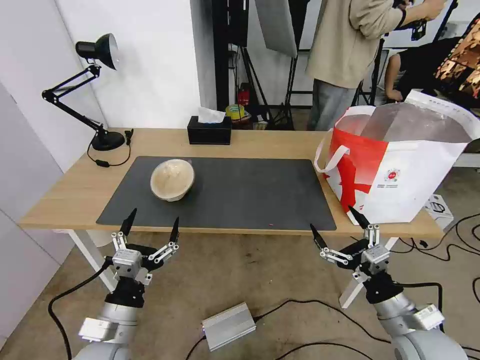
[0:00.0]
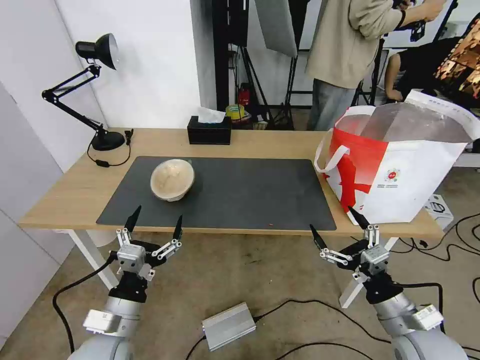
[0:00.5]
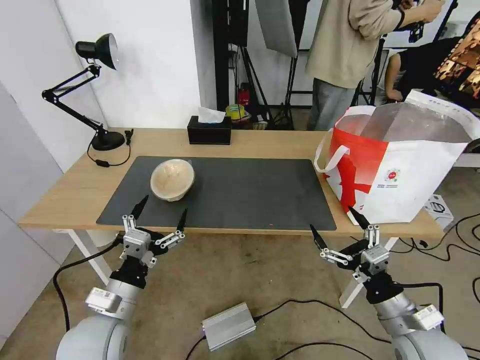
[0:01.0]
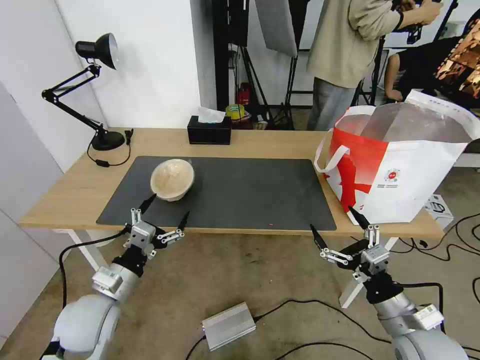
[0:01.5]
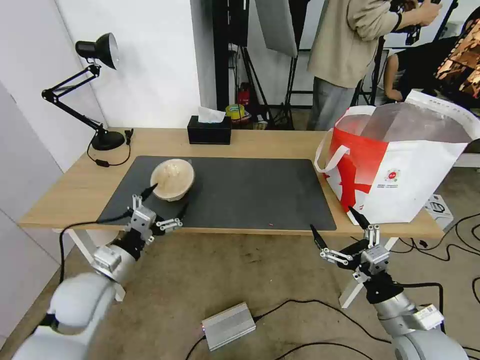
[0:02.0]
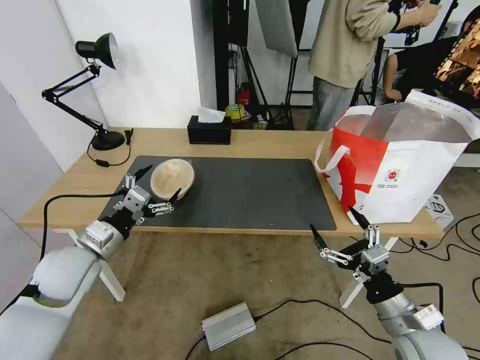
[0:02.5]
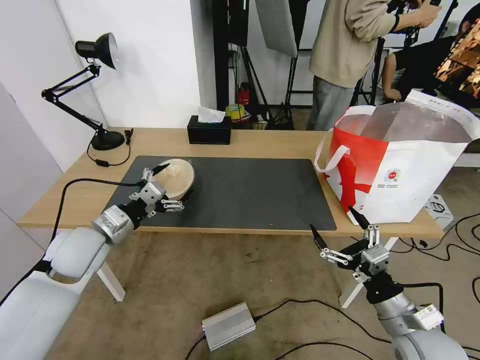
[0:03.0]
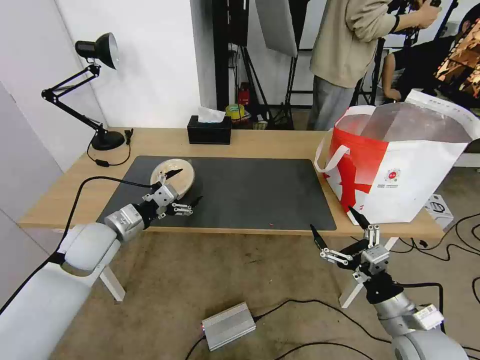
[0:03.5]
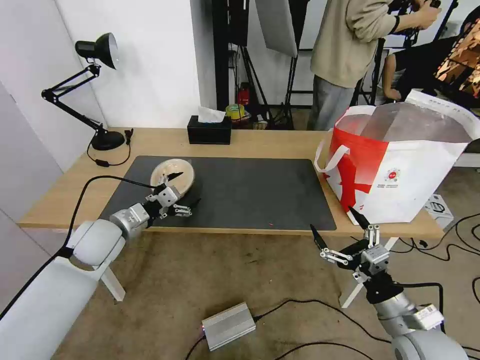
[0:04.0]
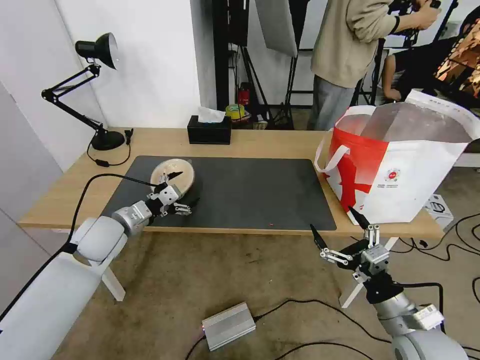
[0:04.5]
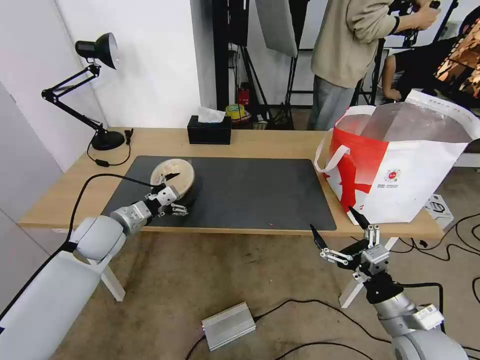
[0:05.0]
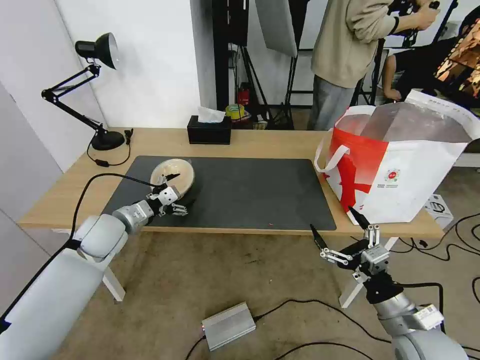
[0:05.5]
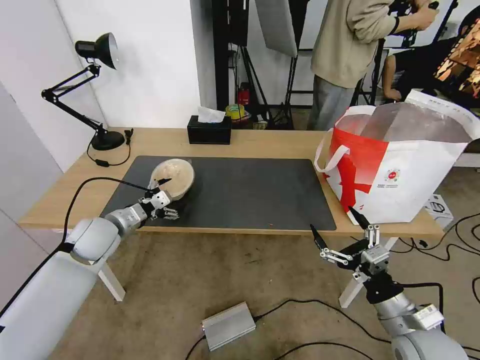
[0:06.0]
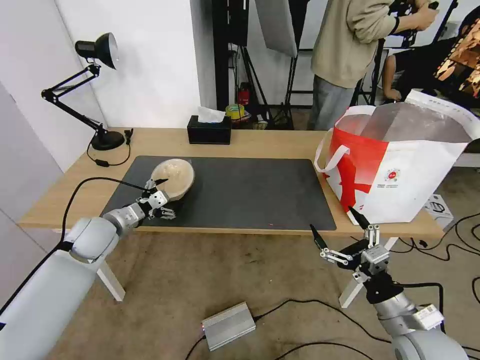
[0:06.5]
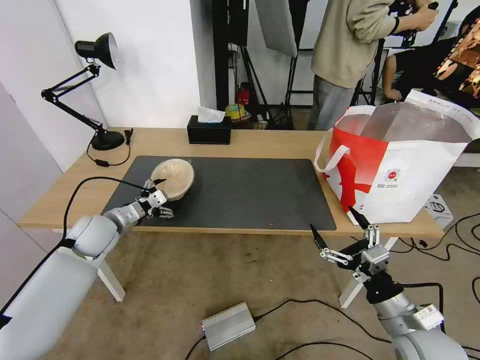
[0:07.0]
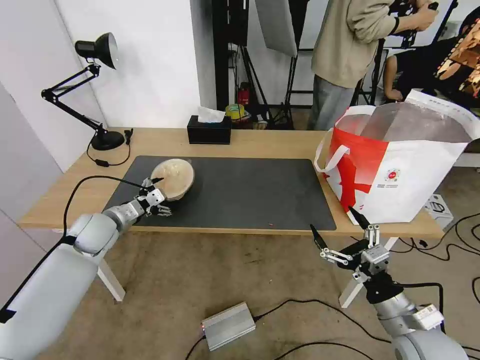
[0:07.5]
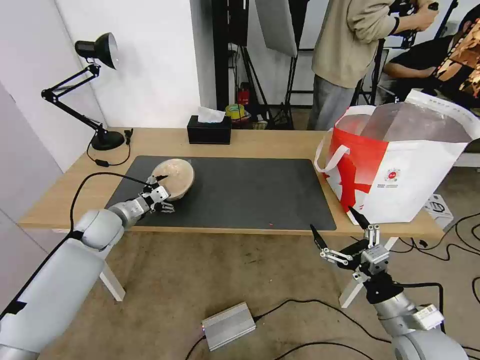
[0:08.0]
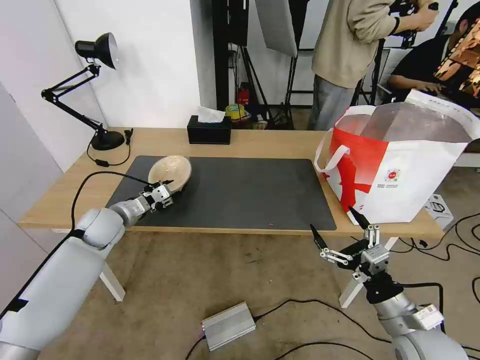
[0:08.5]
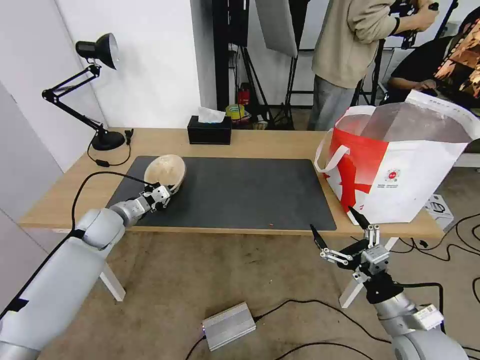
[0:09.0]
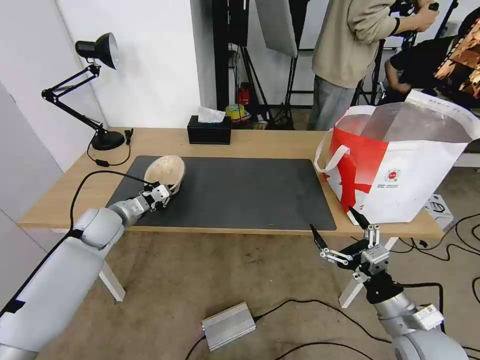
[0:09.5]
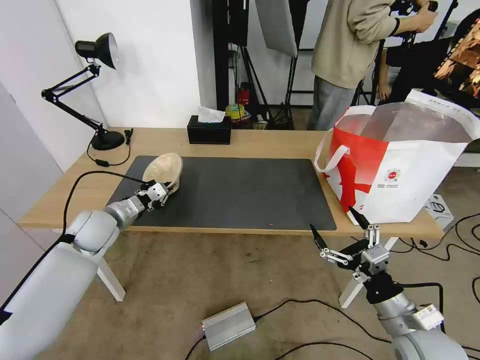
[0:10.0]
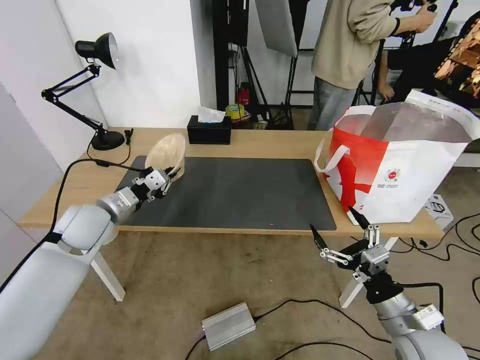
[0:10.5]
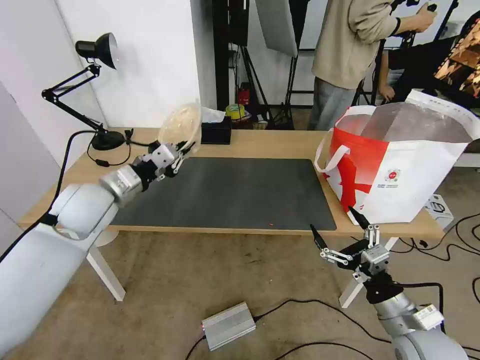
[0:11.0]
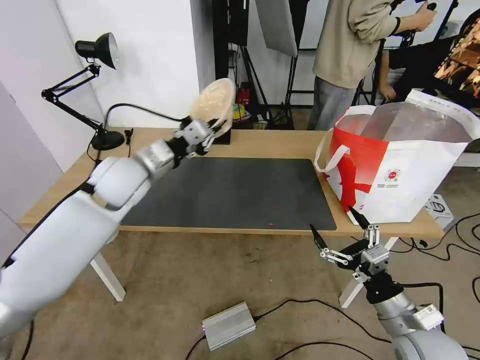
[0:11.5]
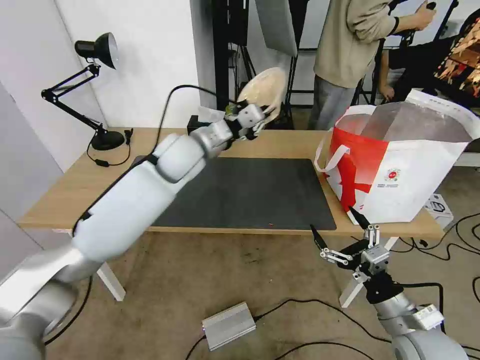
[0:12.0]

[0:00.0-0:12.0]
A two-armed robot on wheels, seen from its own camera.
Task of the whole recording: Pick up the trash from the table and place it into the takeout bag.
0:00.0 to 0:02.0: The left gripper moves forward and to the left, approximately 15 cm.
0:02.0 to 0:04.0: The left gripper heads forward, covering approximately 10 cm.
0:04.0 to 0:06.0: There are only small adjustments of the grippers.
0:06.0 to 0:08.0: There are only small adjustments of the grippers.
0:08.0 to 0:10.0: The left gripper closes up.
0:10.0 to 0:12.0: The left gripper moves to the right and upward, approximately 25 cm.

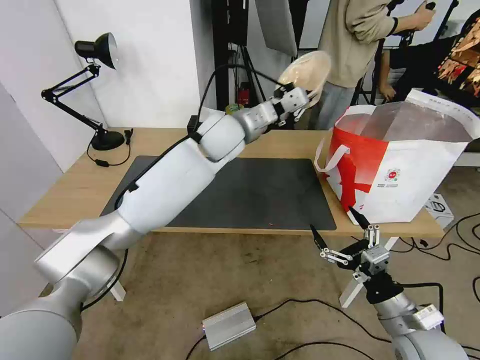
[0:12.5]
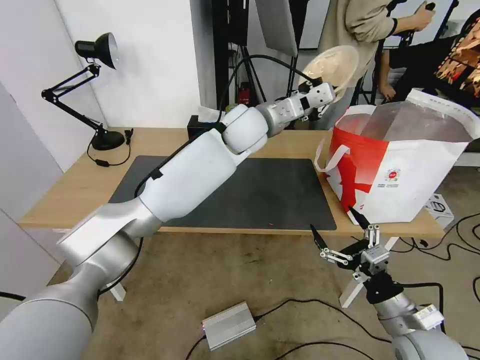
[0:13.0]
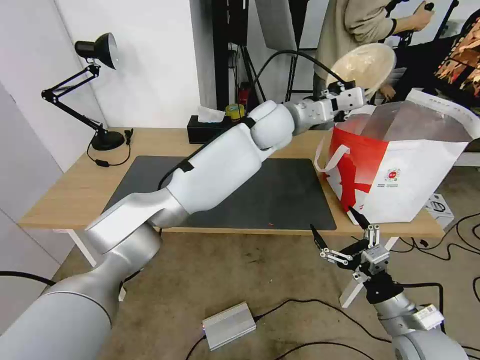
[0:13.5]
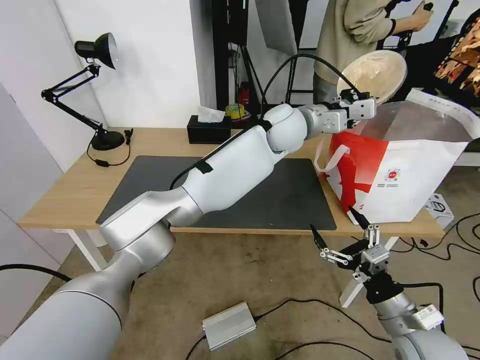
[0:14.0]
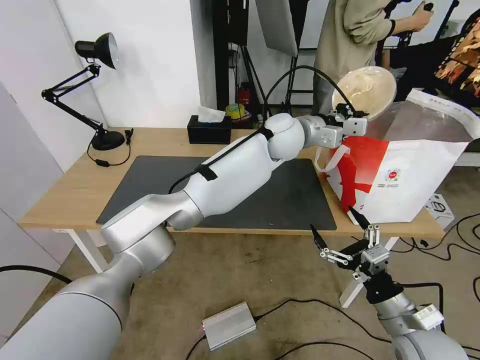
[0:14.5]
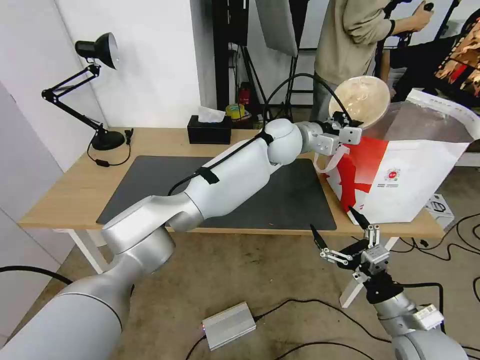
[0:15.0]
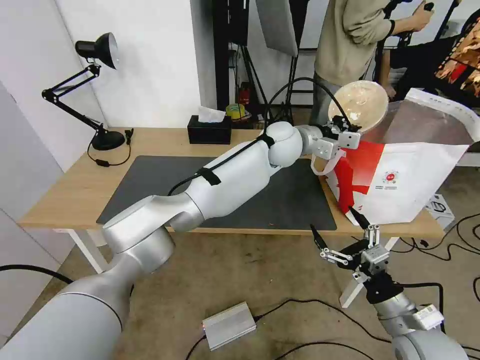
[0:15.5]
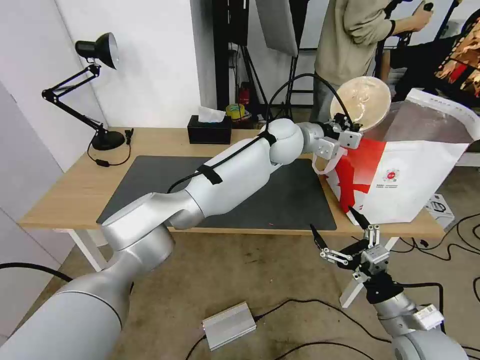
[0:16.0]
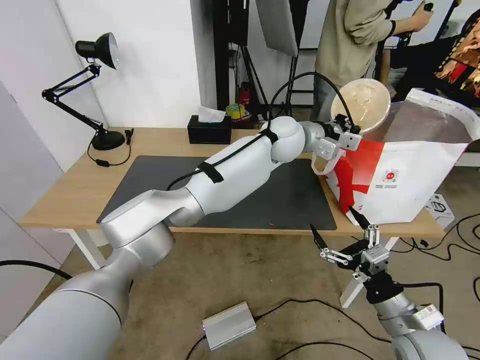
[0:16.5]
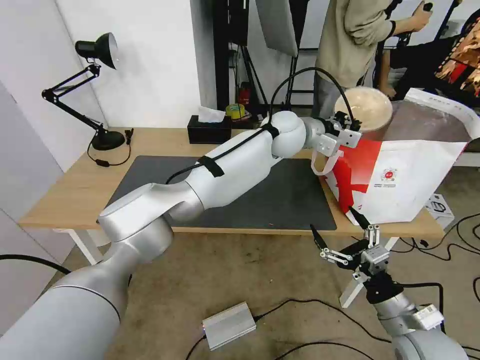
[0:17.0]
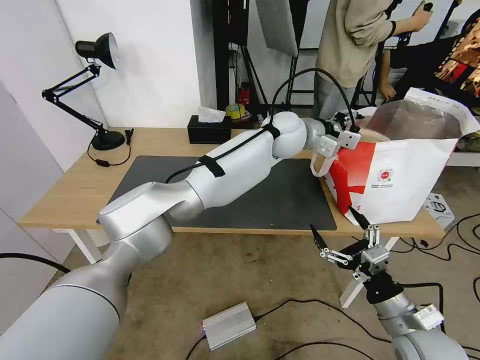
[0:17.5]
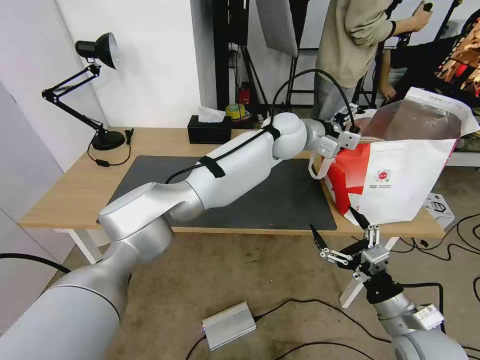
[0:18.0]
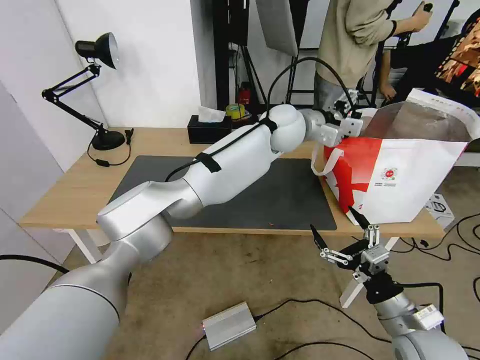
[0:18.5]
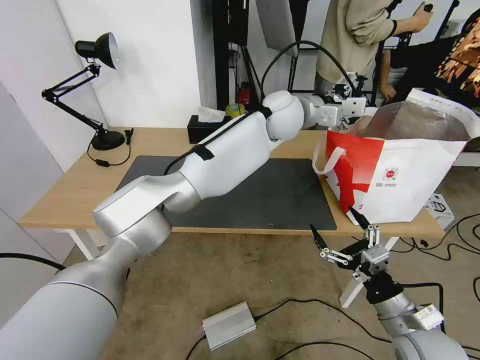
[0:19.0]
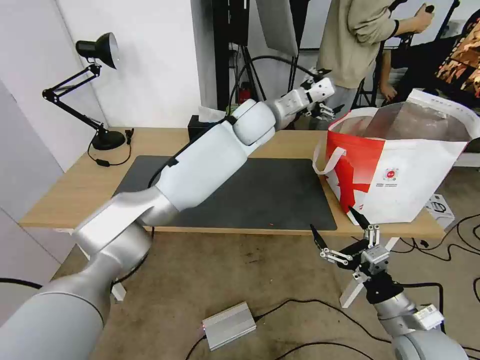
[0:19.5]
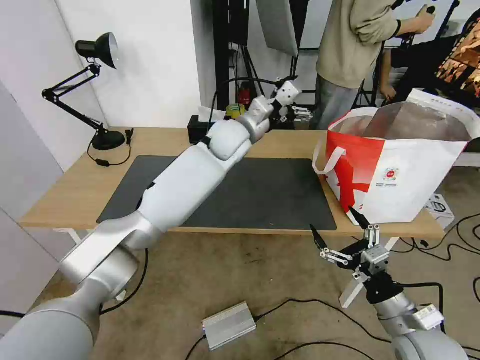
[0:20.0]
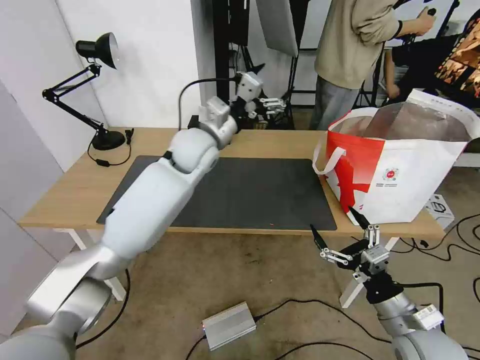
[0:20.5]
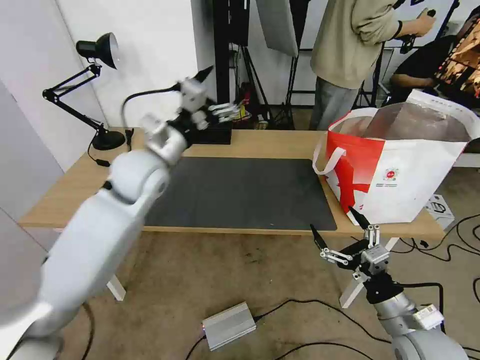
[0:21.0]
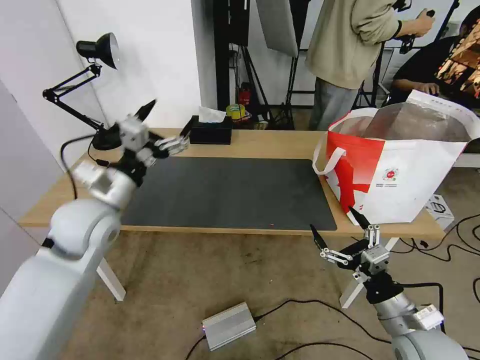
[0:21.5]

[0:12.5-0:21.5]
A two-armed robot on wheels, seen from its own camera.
Task of the whole recording: Pick up the trash from the table and place it into the takeout bag.
0:12.5 to 0:14.5: The left gripper heads to the right, covering about 15 cm.
0:14.5 to 0:17.0: The grippers move only a little.
0:17.0 to 0:19.5: The left gripper shifts roughly 5 cm to the left, and opens up.
0:19.5 to 0:21.5: The left gripper goes some 35 cm to the left and backward.

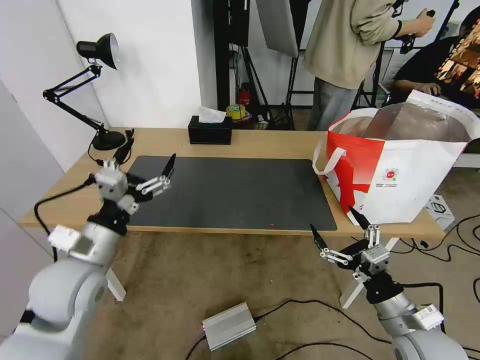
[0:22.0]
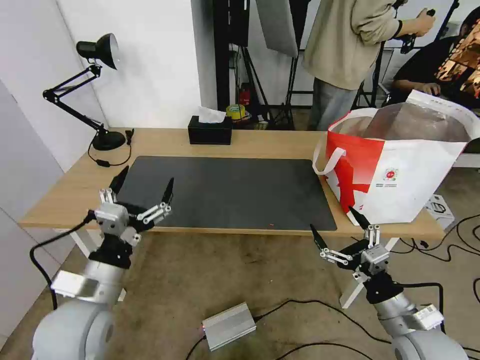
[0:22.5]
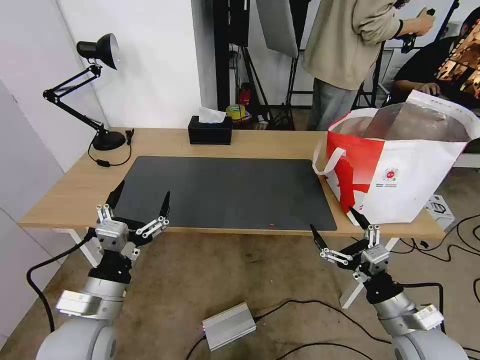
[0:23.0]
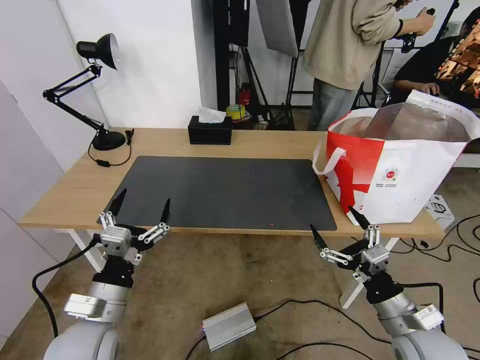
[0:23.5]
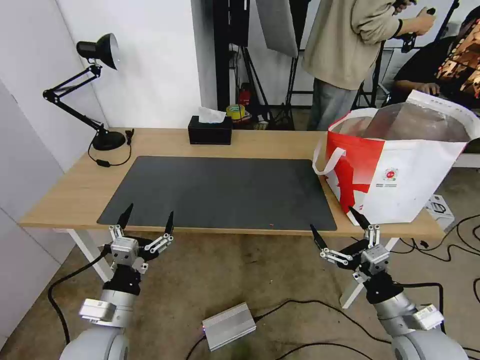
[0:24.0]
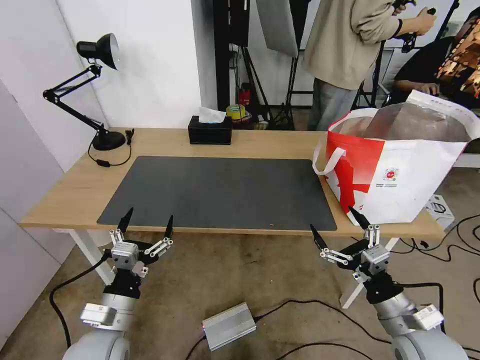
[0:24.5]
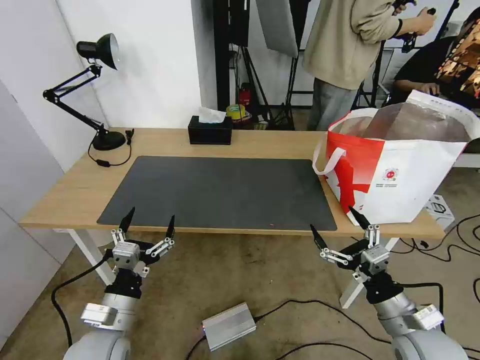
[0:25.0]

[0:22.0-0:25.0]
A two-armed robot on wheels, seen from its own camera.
Task of the whole recording: Pick up the trash from the table and place it into the takeout bag.
0:22.0 to 0:23.5: The left gripper goes approximately 10 cm backward and downward.
0:23.5 to 0:25.0: There are only small adjustments of the grippers.

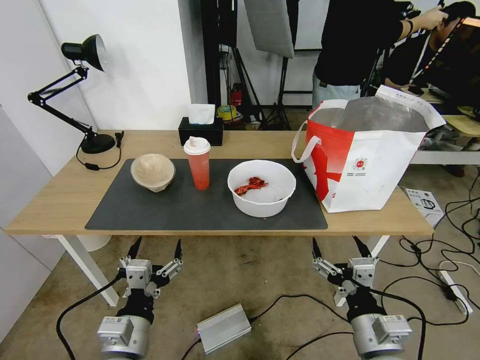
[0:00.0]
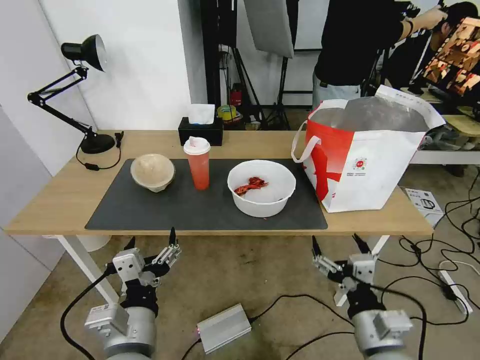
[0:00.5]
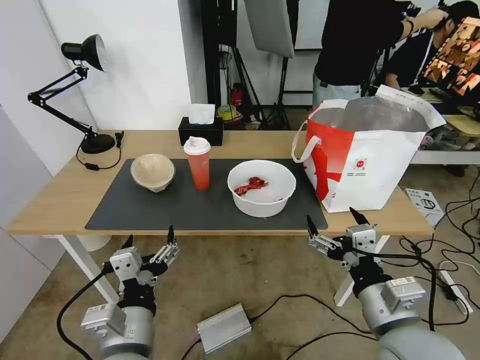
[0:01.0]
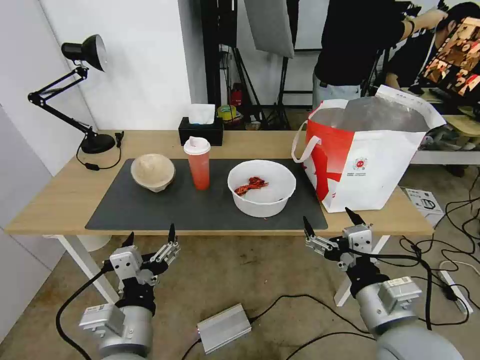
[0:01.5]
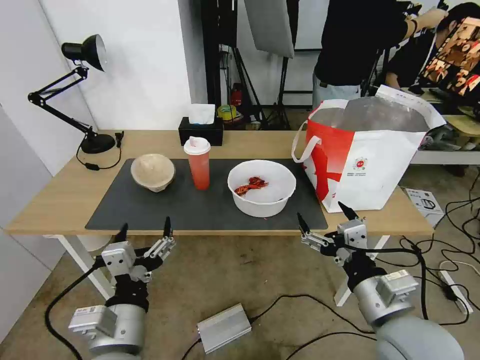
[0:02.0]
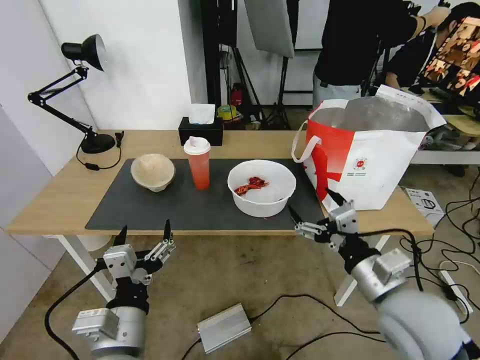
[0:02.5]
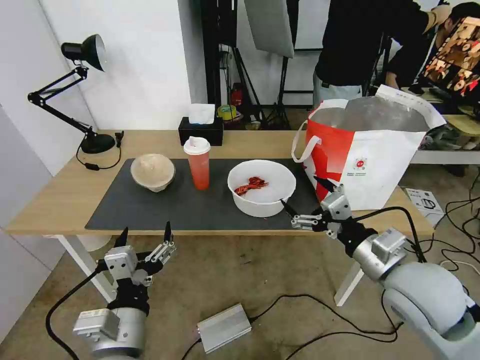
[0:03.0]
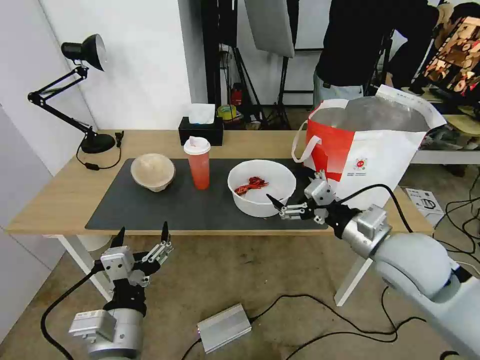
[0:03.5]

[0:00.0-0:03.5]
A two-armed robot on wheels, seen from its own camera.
Task of the whole recording: Pick up the trash from the table and place it into the takeout bag.
0:02.0 to 0:03.5: The right gripper heads forward, covering about 10 cm.
